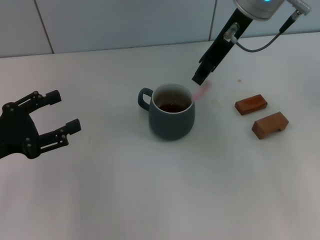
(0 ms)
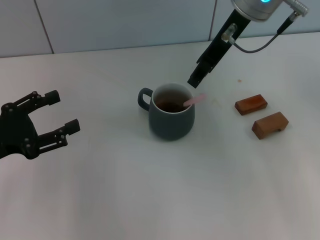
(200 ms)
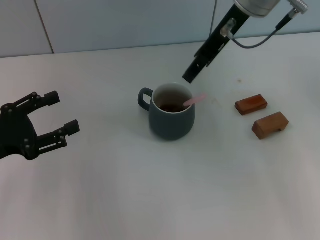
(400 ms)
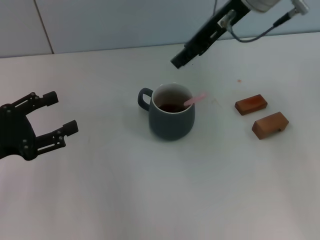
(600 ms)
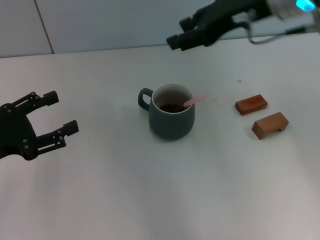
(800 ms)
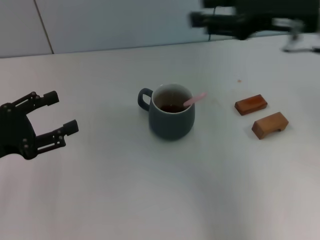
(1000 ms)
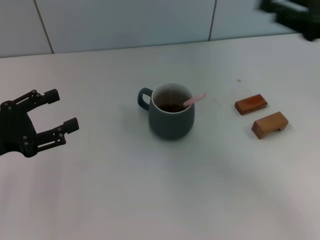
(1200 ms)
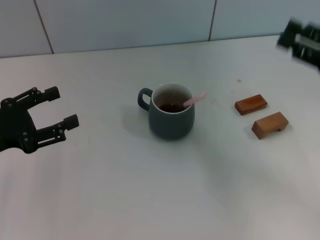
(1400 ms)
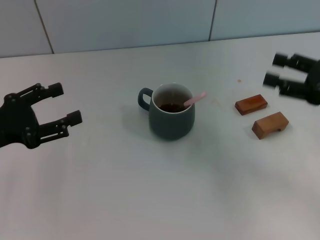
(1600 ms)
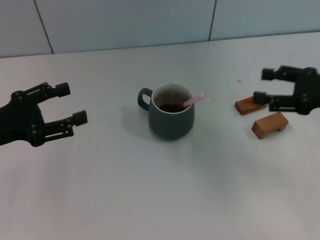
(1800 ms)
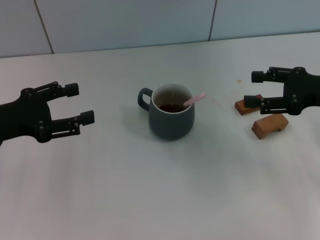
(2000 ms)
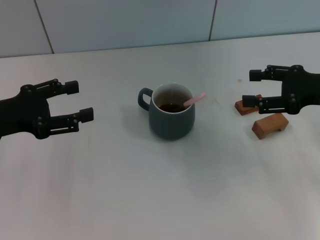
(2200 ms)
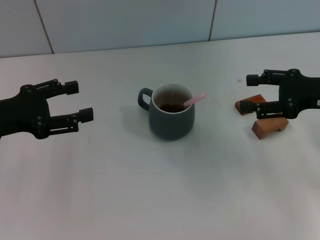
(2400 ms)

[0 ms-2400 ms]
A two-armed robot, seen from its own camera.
Task of the whole recording: Move the grey cup to the center, lift the pink spoon, stir it three times in the cup, and put the spoon into the cup.
0 ms to 1200 ms: The right gripper is displaced to the right, backward and downward by approximately 25 cm, and opens.
1200 ms to 2400 ms: The right gripper shifts some 5 cm downward.
